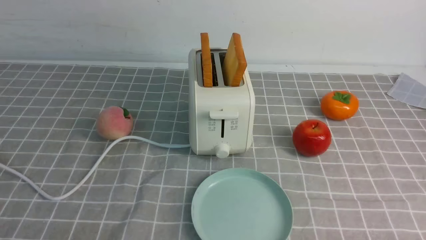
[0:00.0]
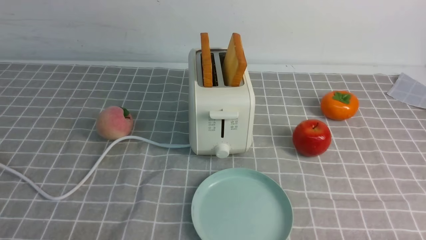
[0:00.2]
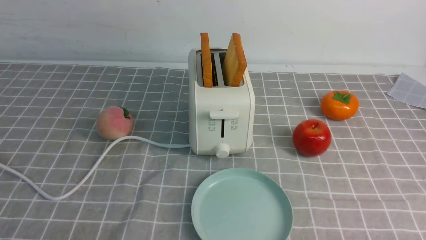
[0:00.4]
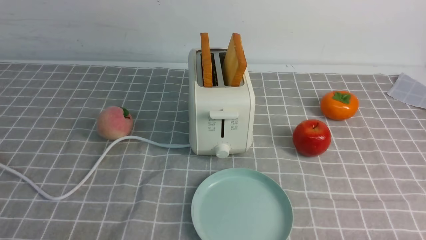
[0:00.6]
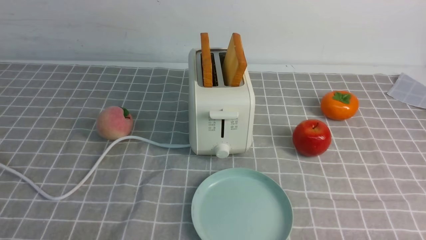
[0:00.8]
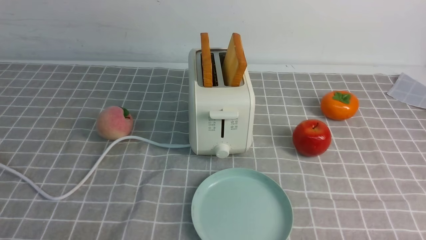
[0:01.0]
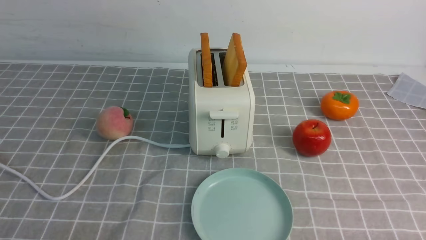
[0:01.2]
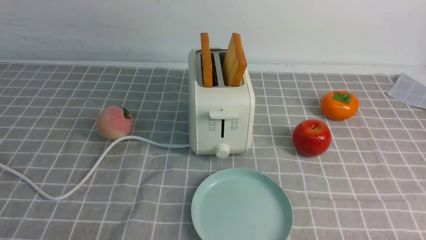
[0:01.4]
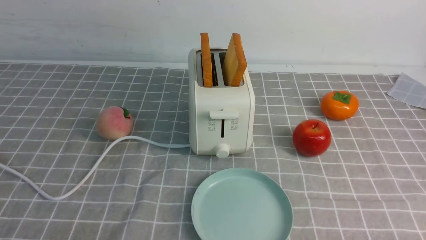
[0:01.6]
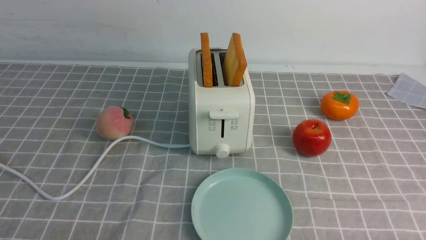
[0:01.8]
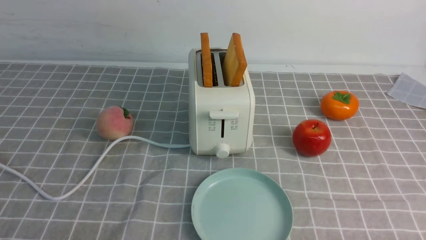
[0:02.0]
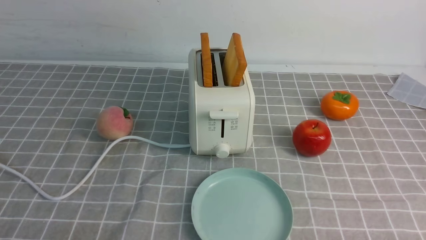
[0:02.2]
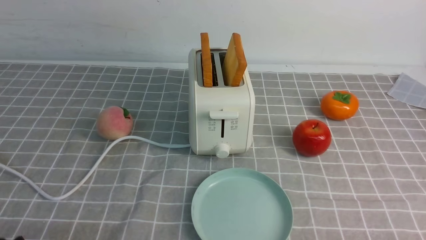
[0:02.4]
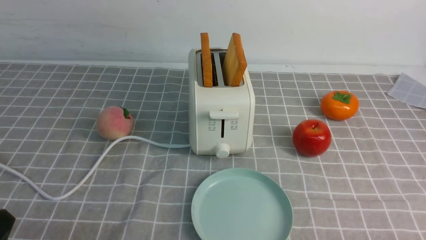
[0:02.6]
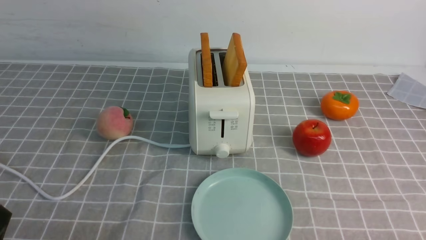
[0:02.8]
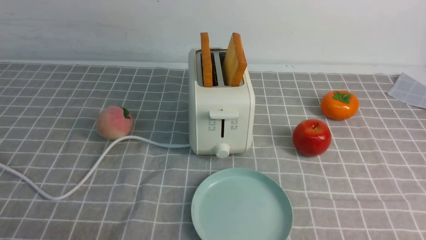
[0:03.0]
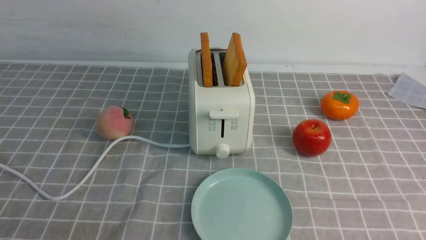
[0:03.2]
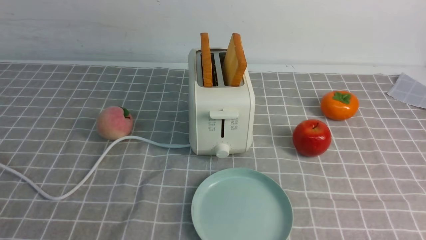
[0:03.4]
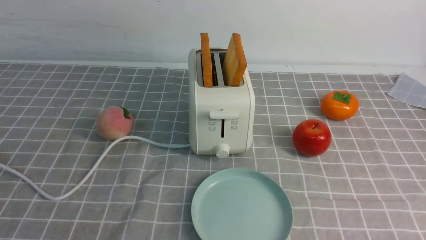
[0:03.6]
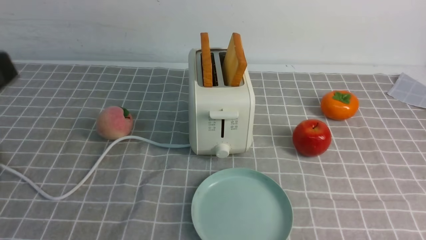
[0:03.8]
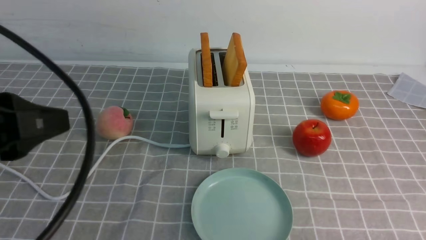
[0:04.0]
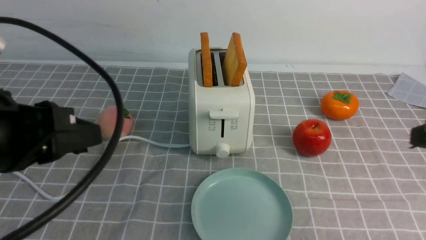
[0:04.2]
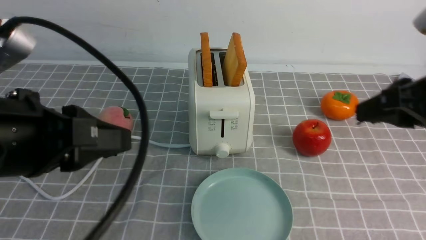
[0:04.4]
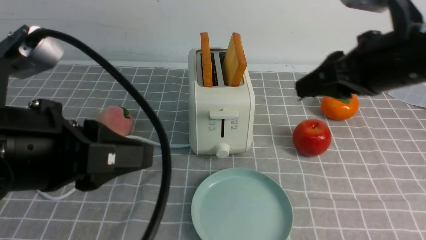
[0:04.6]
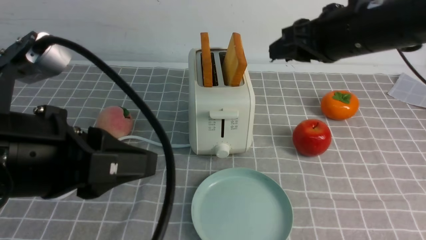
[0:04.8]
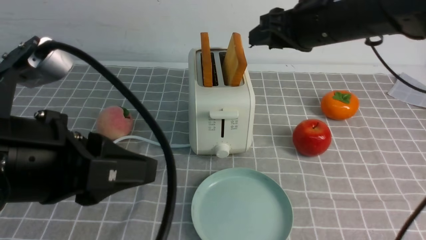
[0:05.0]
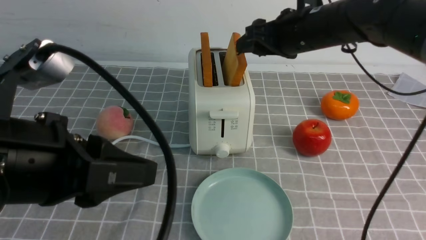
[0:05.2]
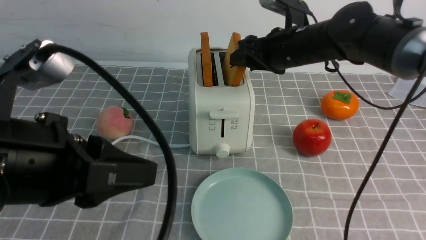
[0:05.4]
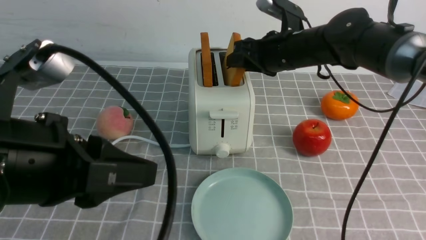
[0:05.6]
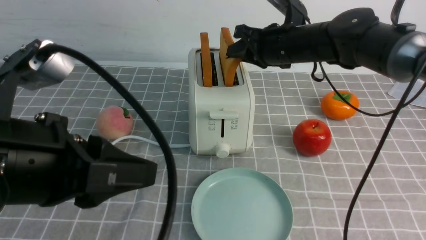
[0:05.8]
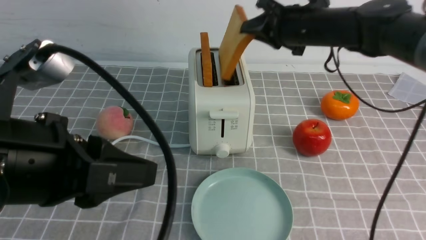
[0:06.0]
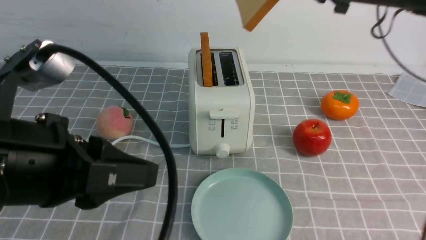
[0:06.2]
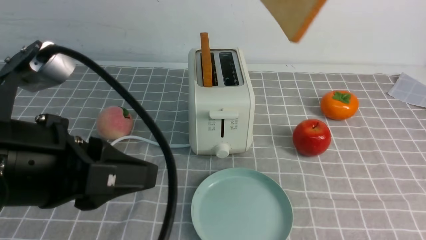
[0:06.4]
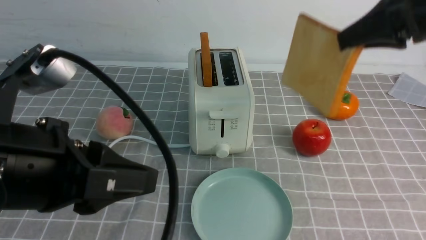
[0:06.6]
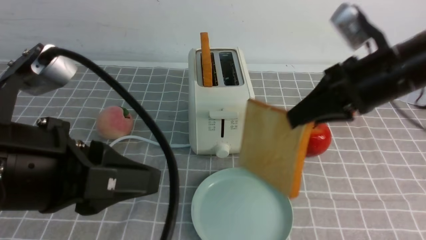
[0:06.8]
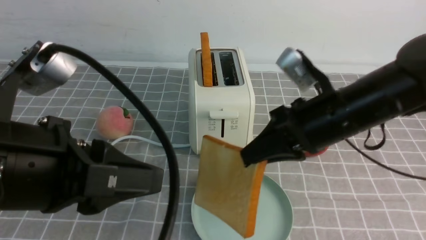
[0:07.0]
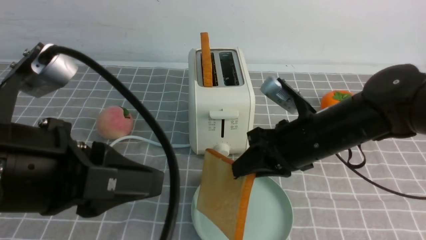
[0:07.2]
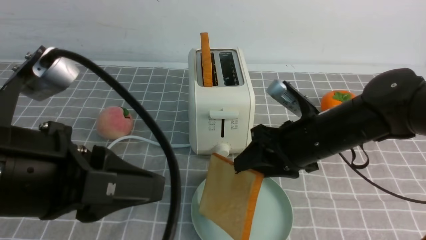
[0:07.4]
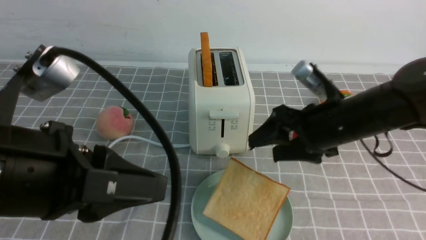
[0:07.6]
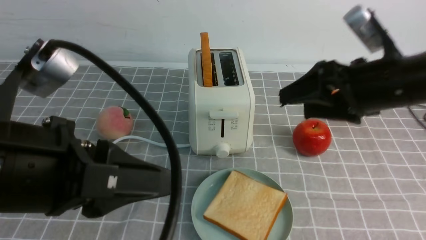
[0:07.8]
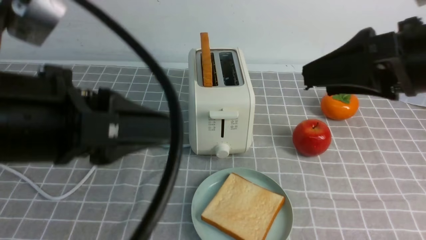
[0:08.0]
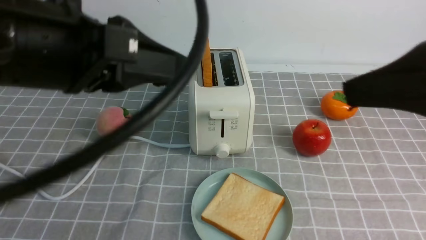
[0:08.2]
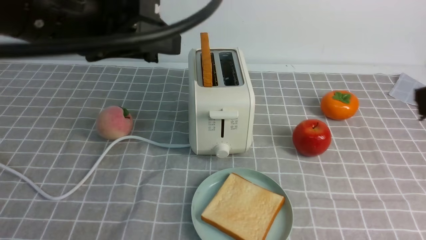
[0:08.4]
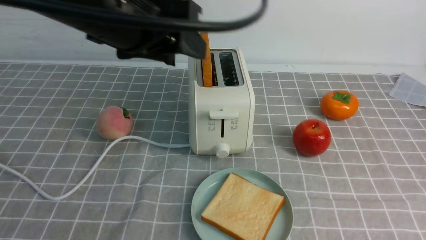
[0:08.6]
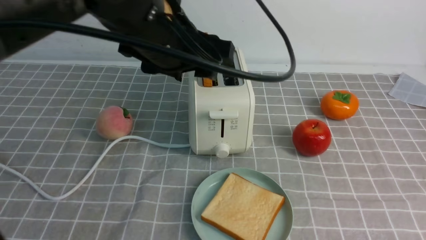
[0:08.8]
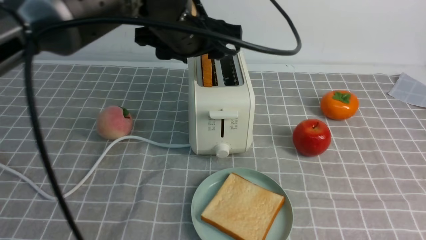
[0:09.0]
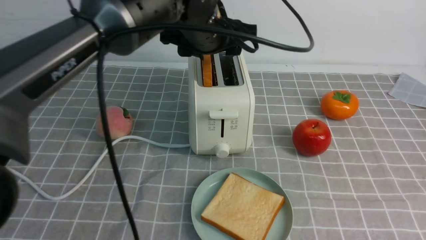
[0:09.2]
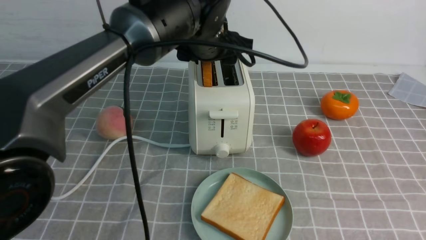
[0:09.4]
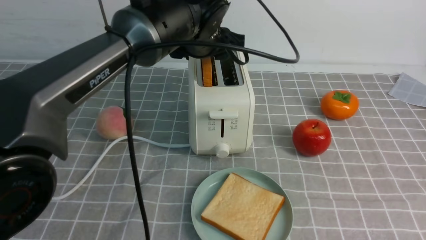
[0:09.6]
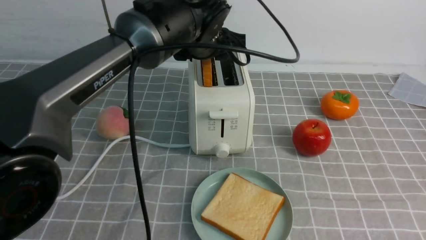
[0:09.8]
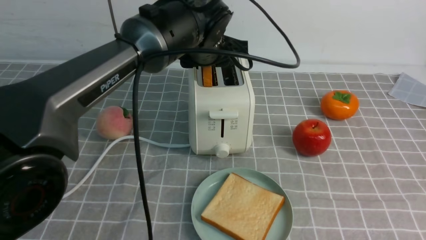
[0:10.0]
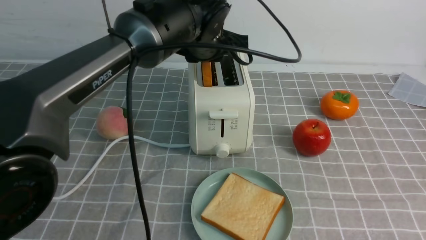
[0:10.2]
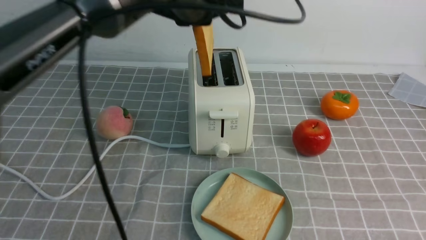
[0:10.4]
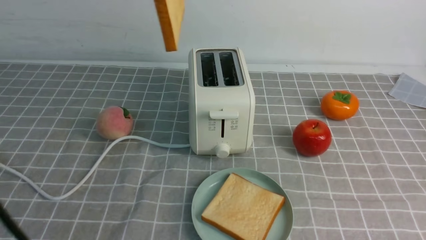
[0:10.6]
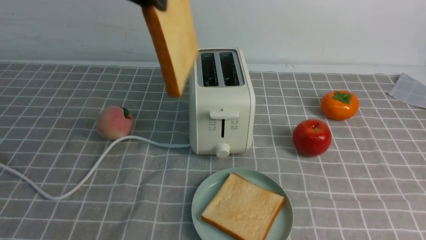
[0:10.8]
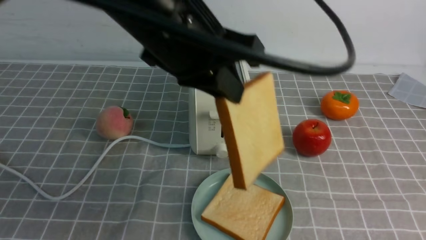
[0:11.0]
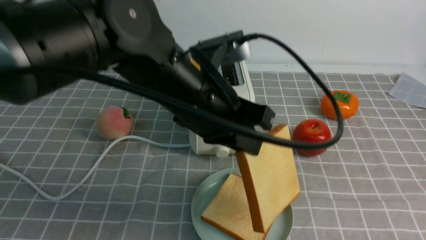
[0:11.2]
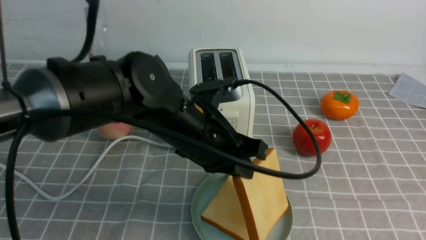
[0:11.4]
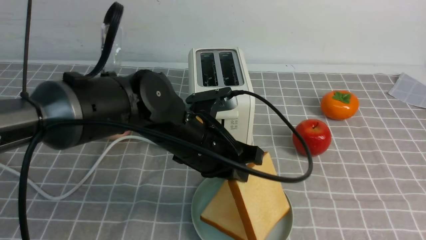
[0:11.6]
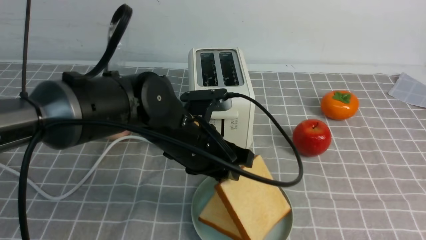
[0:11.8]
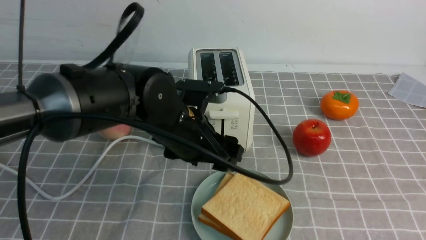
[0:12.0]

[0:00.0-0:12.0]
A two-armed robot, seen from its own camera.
Task of the whole recording: take toasted bread from bread machine on grey coffee table place on plate.
Step, 0:00.0 to 0:06.0: use the right arm to take out a slice of bread.
Step, 0:06.2 to 0:07.6: use the right arm to put a slice of bread into the plate.
Step, 0:07.8 to 0:10.4: use the left arm to take out a slice of bread.
0:03.0 to 0:04.4: The right gripper moves forward and upward, approximately 20 cm. Meanwhile the left gripper shifts approximately 20 cm upward, forward and to the right.
0:04.4 to 0:06.0: The right gripper goes approximately 25 cm forward and to the left, and opens, then closes again.
0:06.0 to 0:07.6: The right gripper goes roughly 15 cm backward and downward, and opens up.
0:07.6 to 0:09.0: The right gripper travels backward, upward and to the right by approximately 30 cm, while the left gripper heads forward and to the right, covering about 25 cm, and opens up.
0:09.0 to 0:10.4: The left gripper travels forward by roughly 5 cm, and closes up.
0:10.4 to 0:12.0: The left gripper goes approximately 15 cm downward and backward, and opens up.

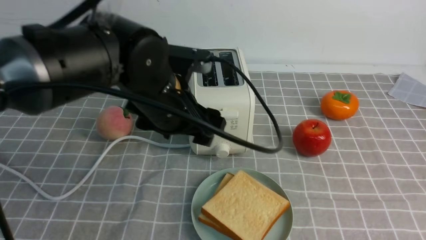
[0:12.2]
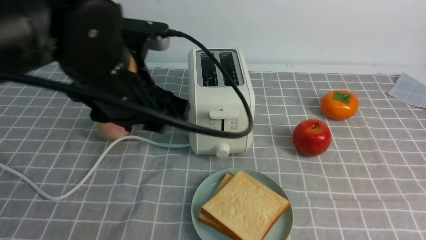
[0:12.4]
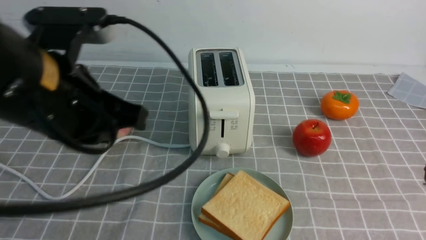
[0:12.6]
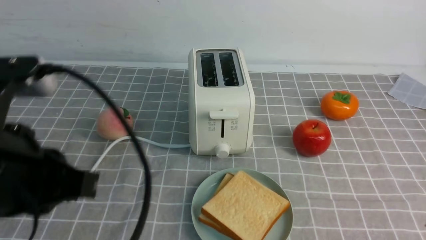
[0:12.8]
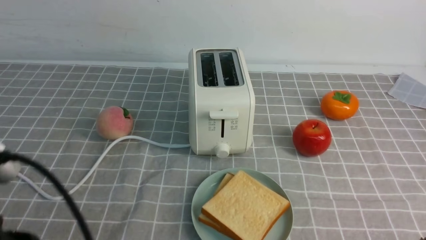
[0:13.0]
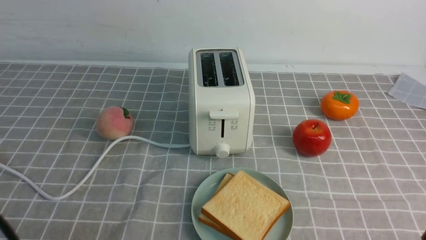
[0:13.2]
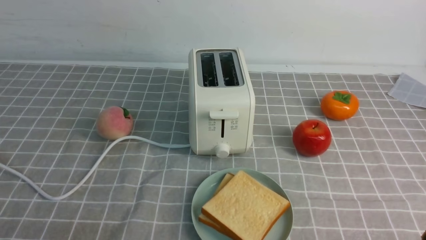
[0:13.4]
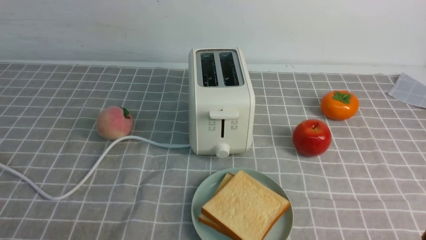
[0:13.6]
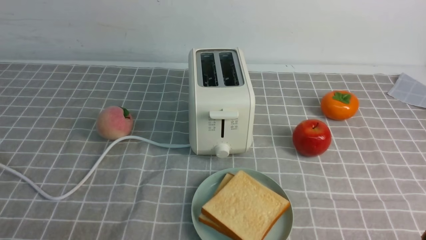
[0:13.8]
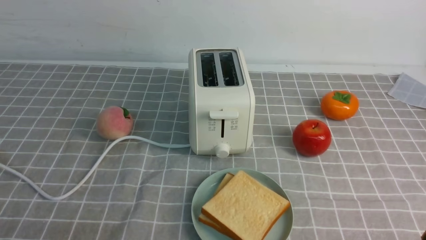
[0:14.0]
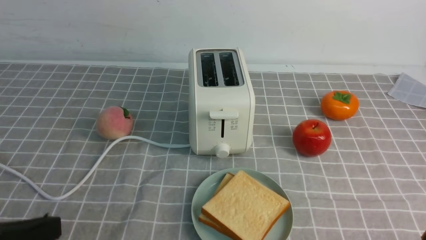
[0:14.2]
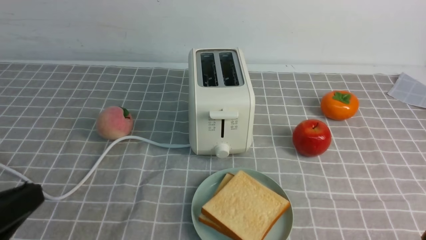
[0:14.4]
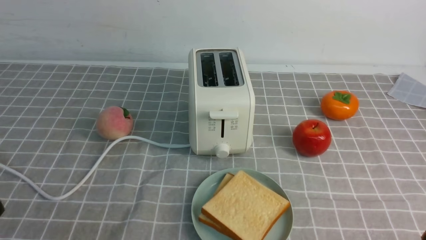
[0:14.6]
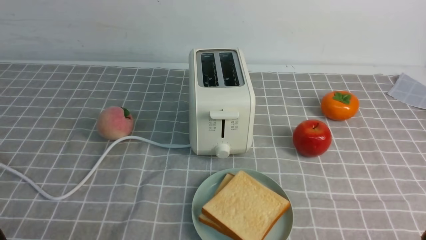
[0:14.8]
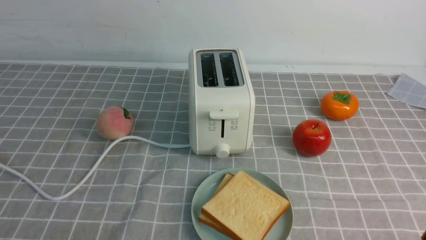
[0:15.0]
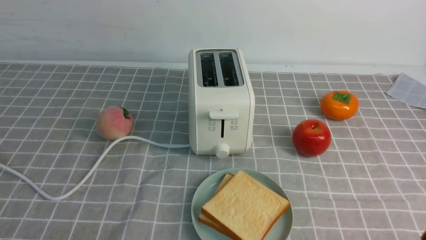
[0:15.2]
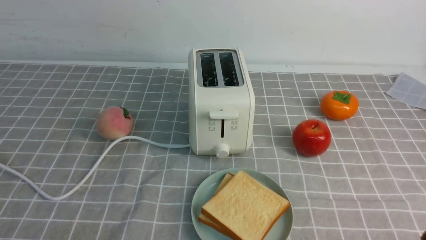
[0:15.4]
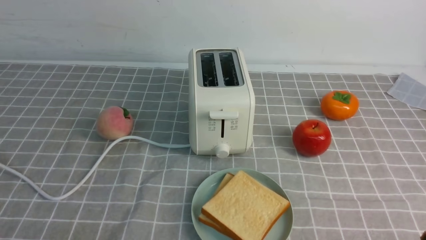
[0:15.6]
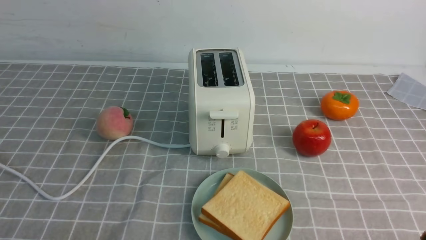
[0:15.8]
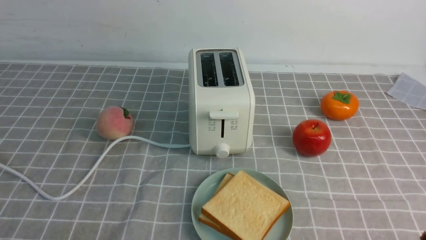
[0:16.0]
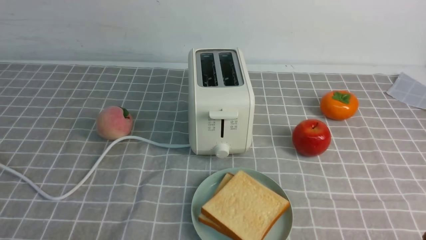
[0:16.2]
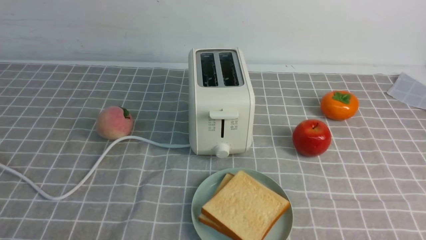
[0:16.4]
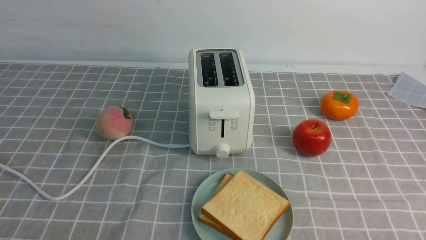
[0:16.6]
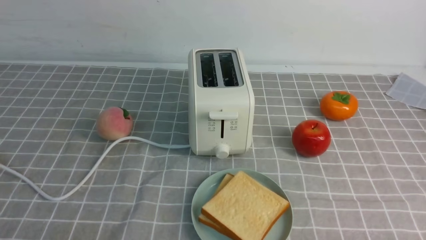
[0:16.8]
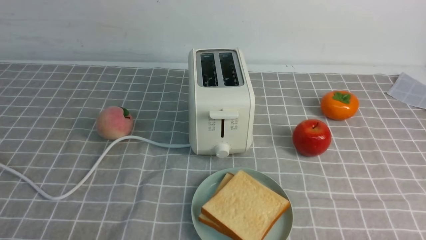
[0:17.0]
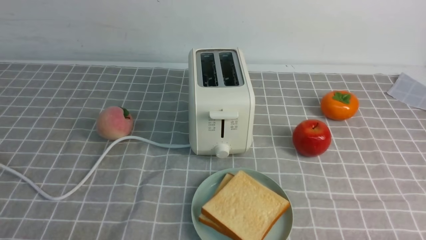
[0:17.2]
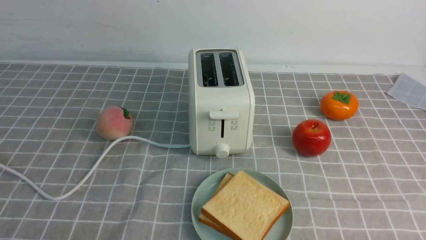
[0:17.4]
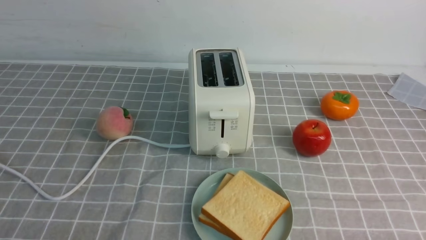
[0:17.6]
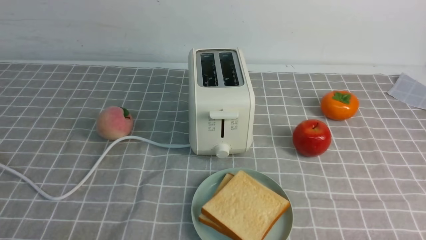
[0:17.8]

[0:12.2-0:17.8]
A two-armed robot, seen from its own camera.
Task of the whole recording: take toasted bread from bread machine on grey coffee table place on plate.
0:12.2 to 0:13.6: The right gripper shifts some 15 cm downward, and closes its fingers, while the left gripper goes roughly 30 cm backward and to the left, and closes up.
